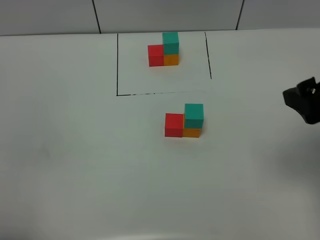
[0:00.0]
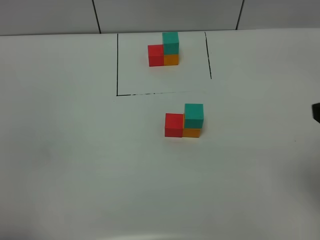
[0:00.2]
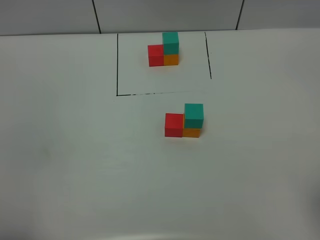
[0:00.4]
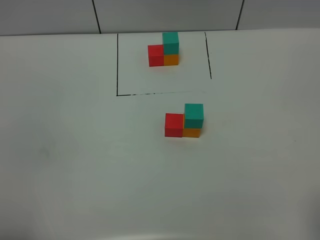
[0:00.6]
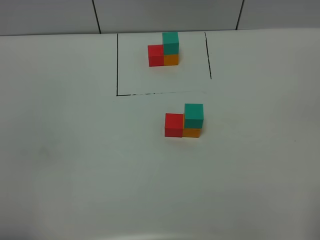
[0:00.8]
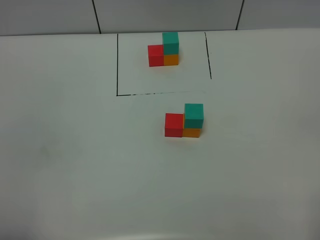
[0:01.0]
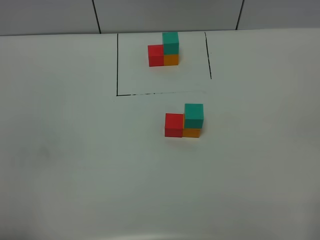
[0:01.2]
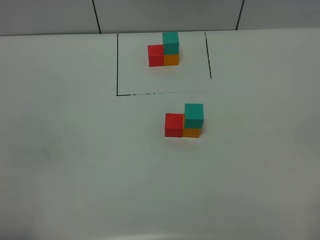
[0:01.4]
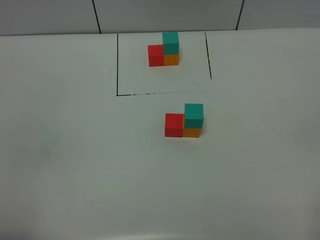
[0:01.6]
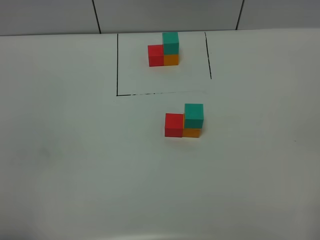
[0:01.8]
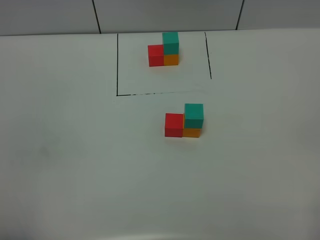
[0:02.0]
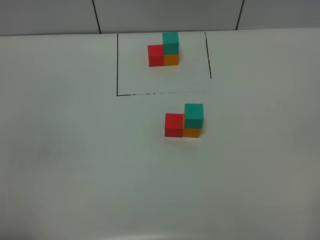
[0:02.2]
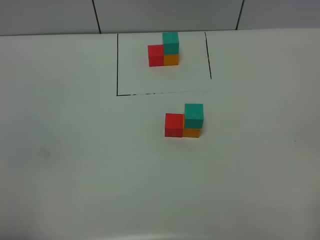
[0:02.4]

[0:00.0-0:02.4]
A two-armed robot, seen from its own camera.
Task of the whole recording: According to the building block template in front, assemble the scattered blocks together.
0:00.0 to 0:01.2: The right gripper is displaced backward by some 20 cm.
0:01.2 to 0:02.4: Both grippers stay about where they are.
